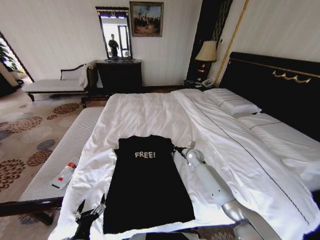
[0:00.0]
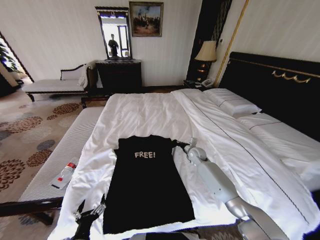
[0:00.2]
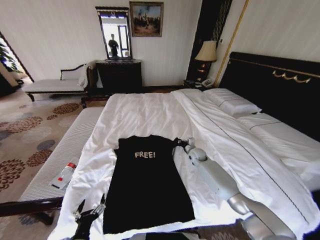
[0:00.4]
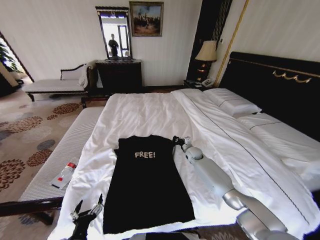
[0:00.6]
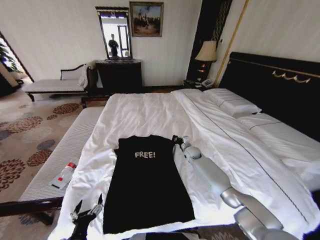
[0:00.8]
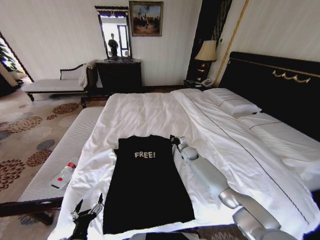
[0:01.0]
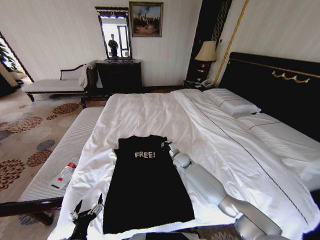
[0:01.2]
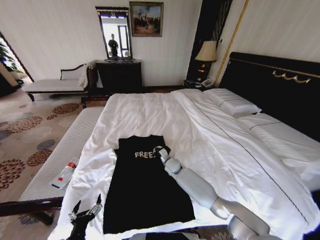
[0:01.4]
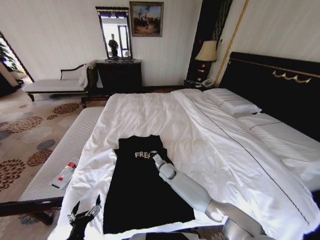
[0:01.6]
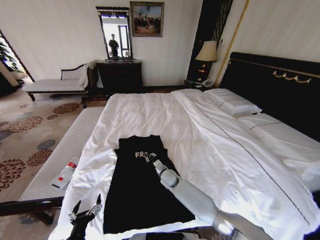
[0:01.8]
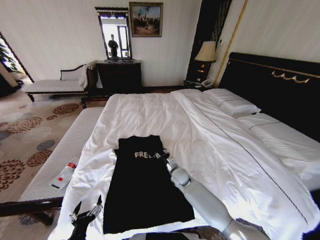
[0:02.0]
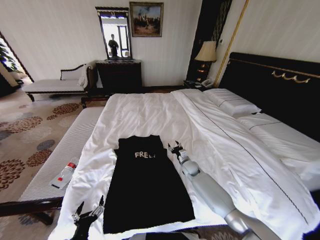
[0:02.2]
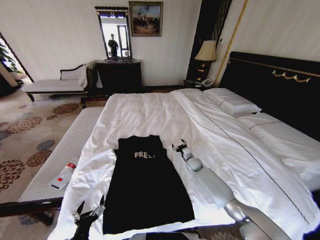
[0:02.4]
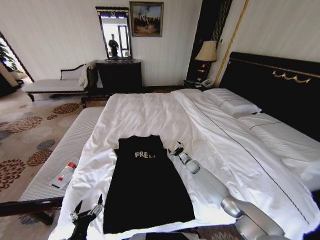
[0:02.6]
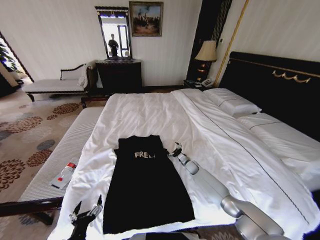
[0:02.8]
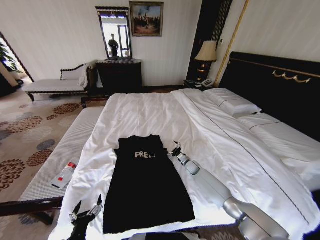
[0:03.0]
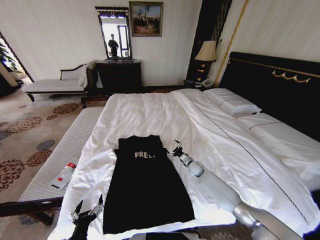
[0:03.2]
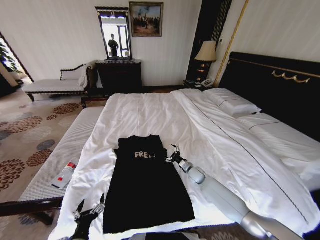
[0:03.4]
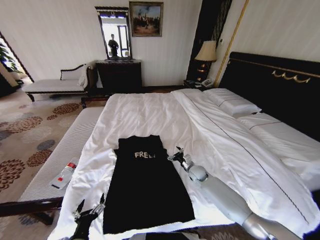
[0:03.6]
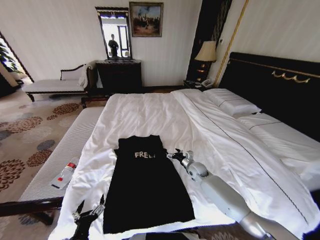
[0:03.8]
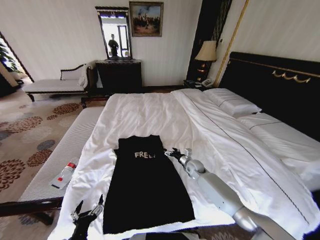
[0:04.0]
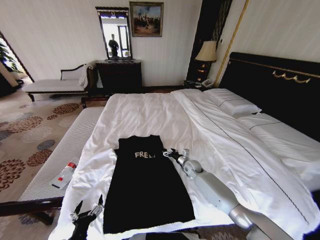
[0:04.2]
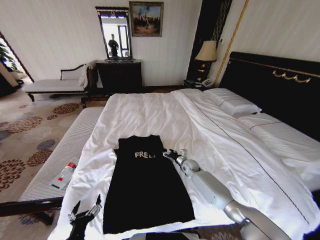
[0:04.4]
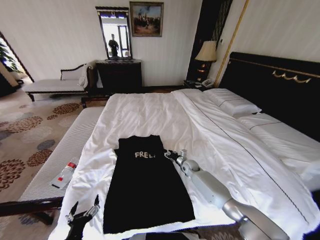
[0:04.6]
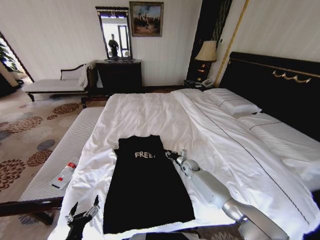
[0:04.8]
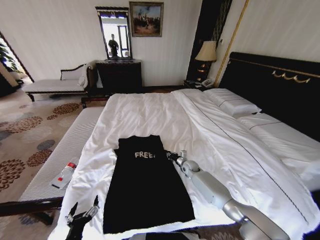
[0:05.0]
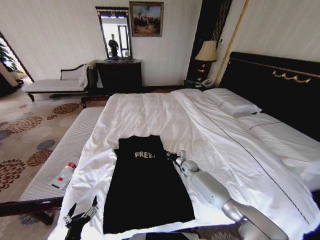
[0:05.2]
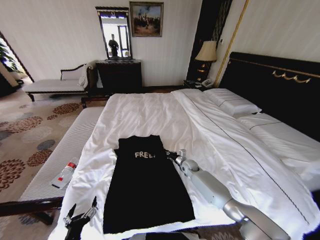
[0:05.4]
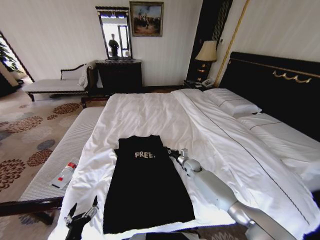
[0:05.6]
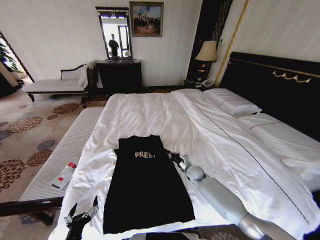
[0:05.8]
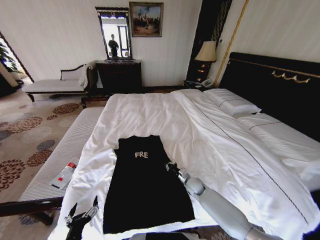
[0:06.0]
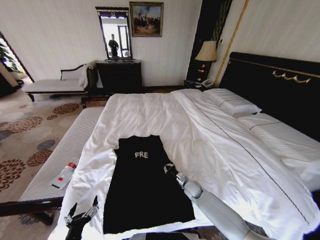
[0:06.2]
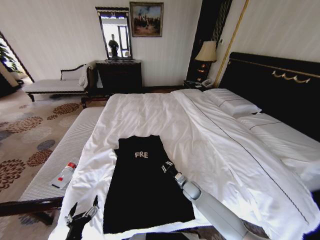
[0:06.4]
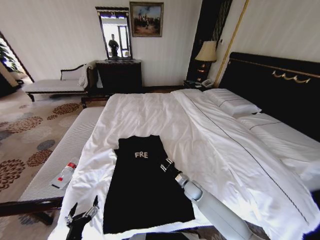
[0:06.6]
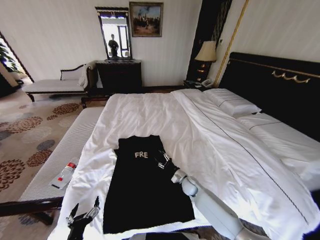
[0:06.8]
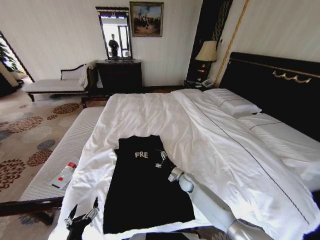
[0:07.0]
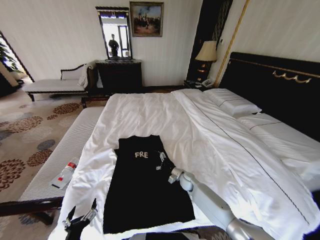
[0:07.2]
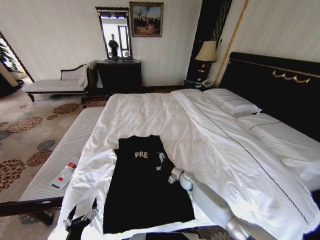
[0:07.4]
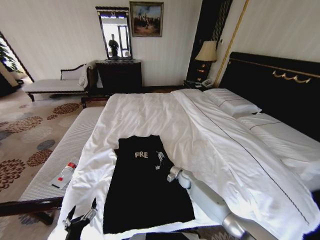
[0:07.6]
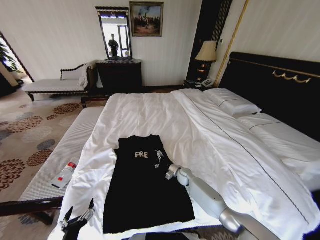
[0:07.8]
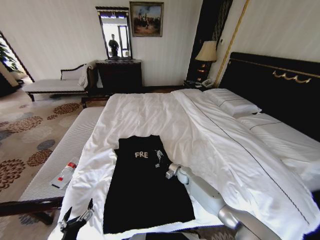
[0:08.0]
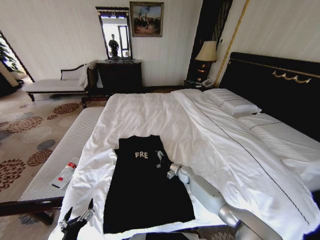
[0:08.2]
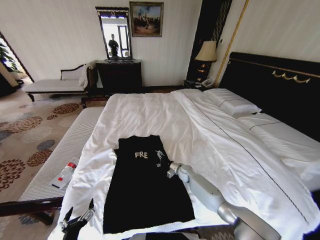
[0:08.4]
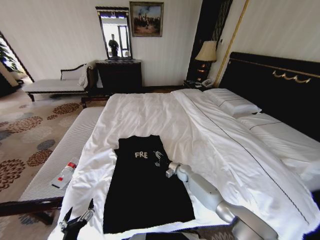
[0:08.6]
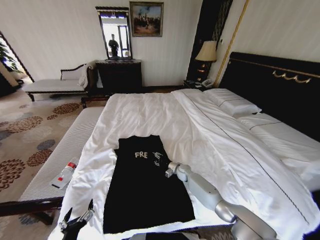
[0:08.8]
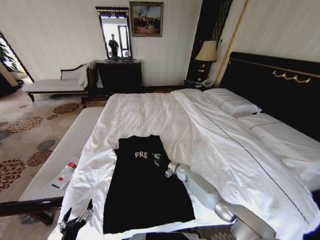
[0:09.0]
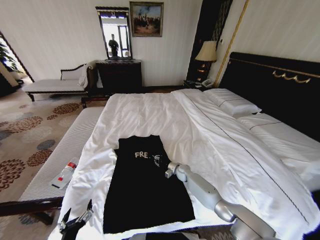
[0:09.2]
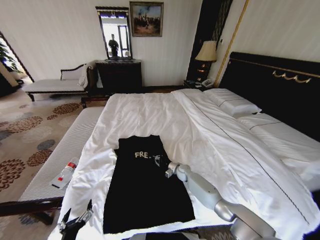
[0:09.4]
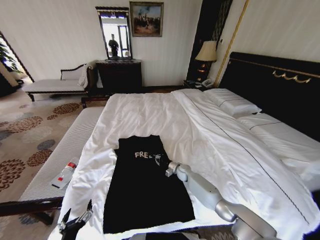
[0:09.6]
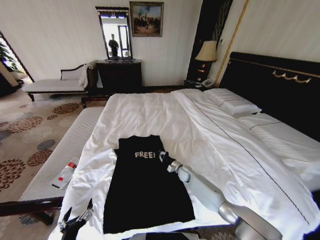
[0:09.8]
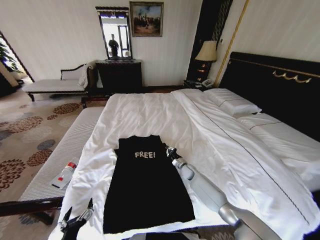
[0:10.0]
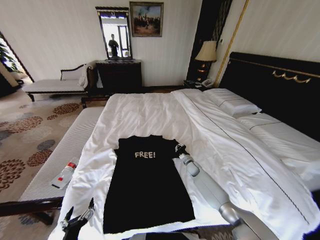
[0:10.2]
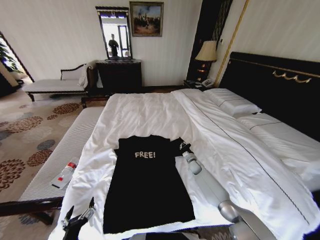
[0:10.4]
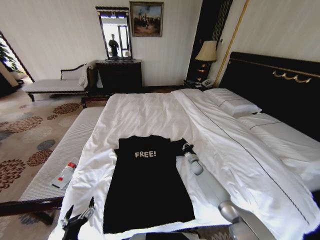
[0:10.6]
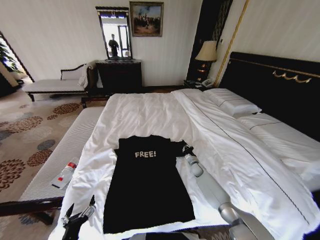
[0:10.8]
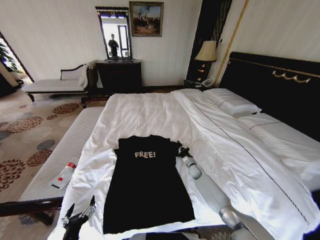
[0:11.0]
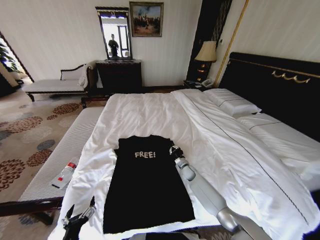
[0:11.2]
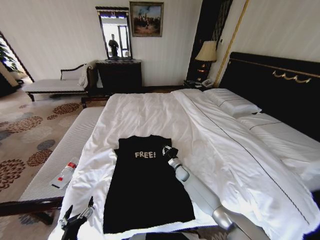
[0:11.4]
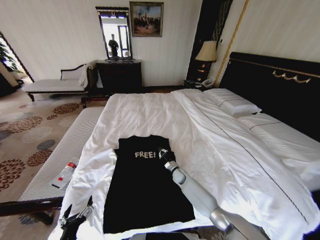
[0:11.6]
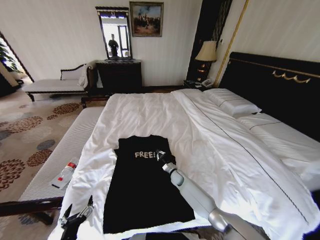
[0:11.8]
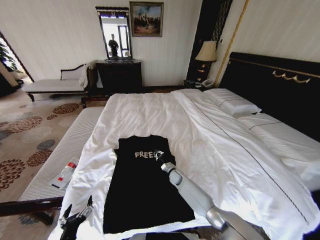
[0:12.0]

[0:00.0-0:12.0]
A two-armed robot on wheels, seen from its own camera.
Task of the whole recording: Fold the clothes on the bed.
0:00.0 to 0:01.6: The right gripper goes some 15 cm to the left.
0:01.6 to 0:03.0: The right gripper travels to the right by roughly 15 cm, and opens up.
0:04.4 to 0:06.0: The right gripper heads backward, covering some 10 cm, and closes up.
0:06.0 to 0:07.6: The right gripper goes roughly 5 cm forward, and opens up.
0:07.6 to 0:09.0: The right gripper closes up.
0:09.0 to 0:10.4: The right gripper shifts roughly 10 cm to the right, and closes its fingers.
0:10.4 to 0:12.0: The right gripper moves to the left, roughly 15 cm.

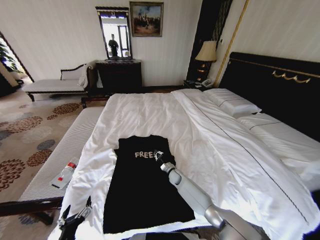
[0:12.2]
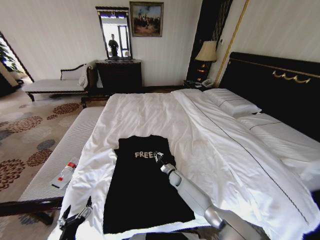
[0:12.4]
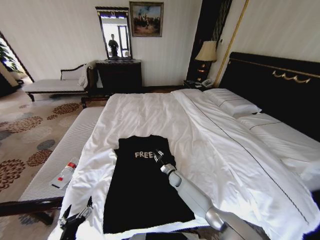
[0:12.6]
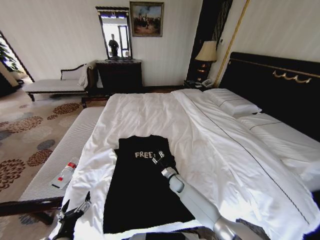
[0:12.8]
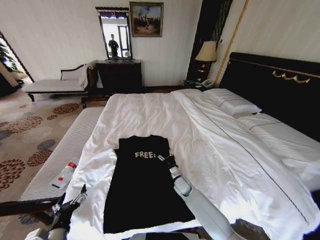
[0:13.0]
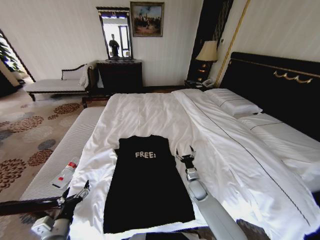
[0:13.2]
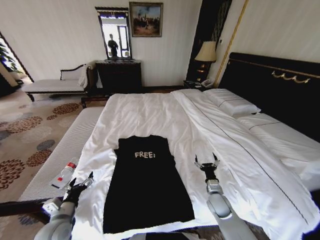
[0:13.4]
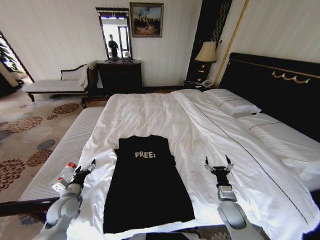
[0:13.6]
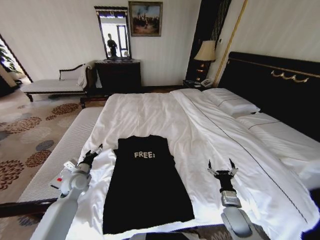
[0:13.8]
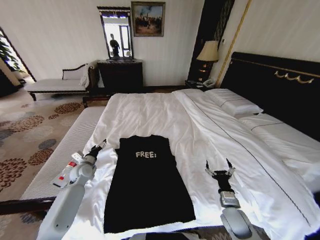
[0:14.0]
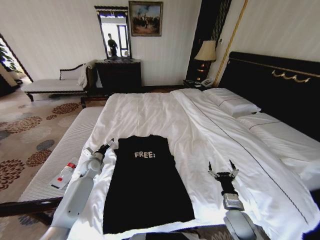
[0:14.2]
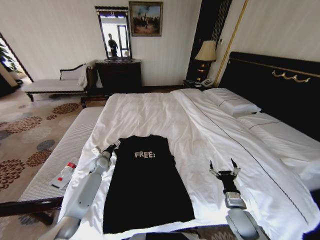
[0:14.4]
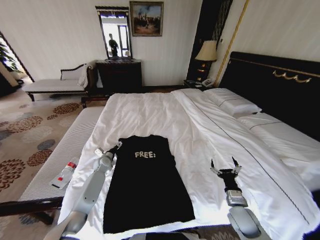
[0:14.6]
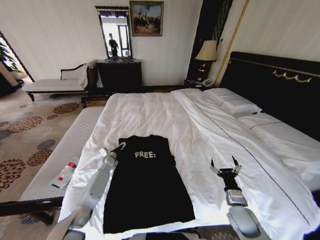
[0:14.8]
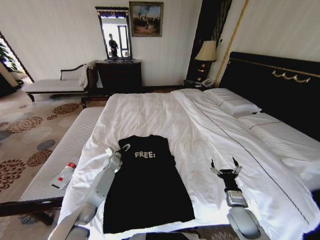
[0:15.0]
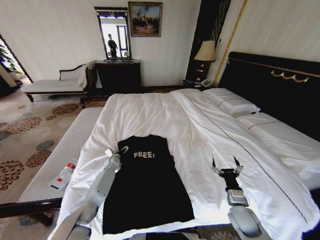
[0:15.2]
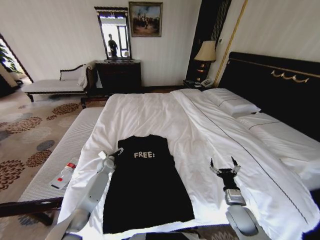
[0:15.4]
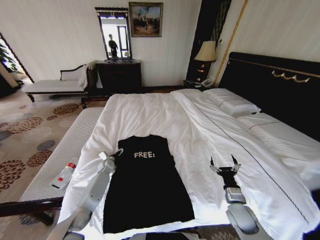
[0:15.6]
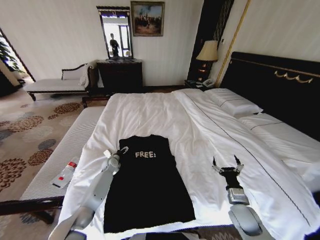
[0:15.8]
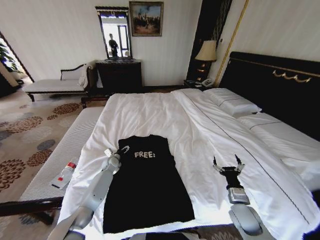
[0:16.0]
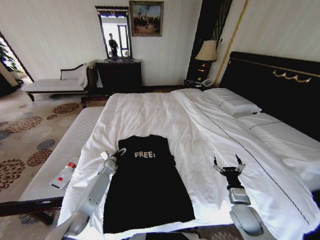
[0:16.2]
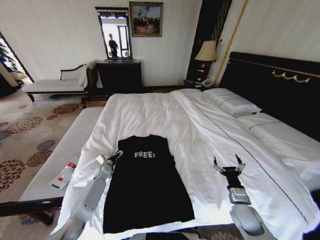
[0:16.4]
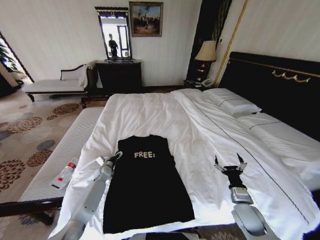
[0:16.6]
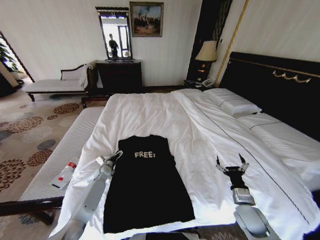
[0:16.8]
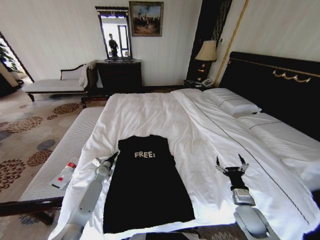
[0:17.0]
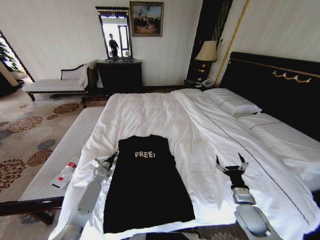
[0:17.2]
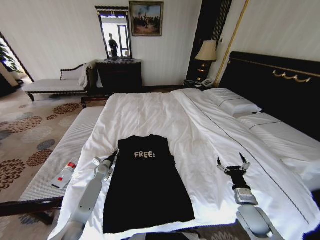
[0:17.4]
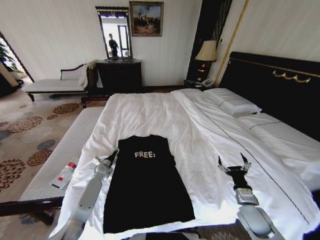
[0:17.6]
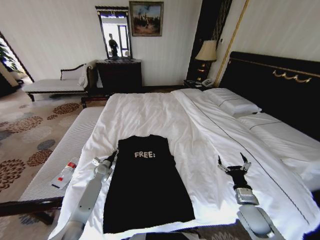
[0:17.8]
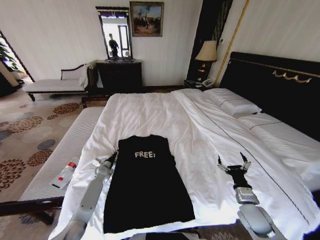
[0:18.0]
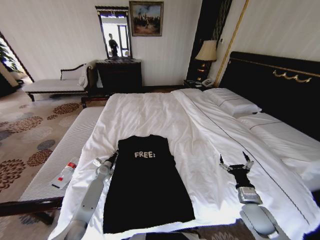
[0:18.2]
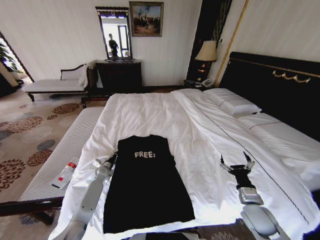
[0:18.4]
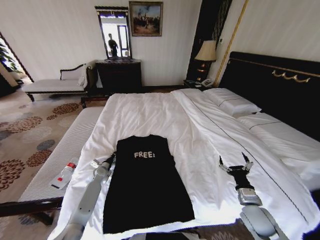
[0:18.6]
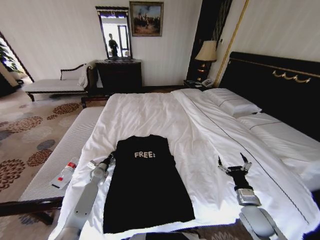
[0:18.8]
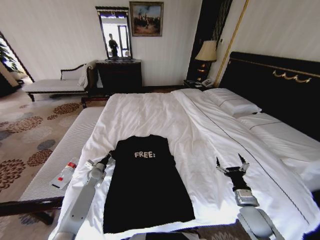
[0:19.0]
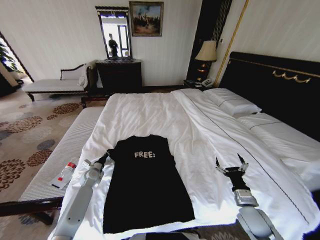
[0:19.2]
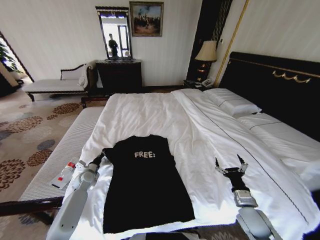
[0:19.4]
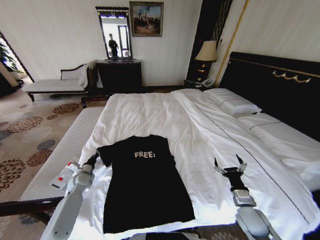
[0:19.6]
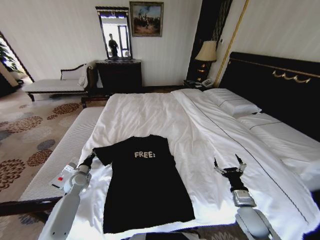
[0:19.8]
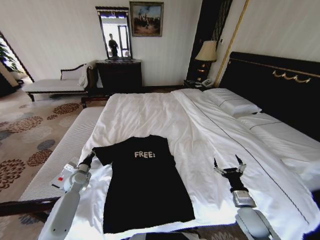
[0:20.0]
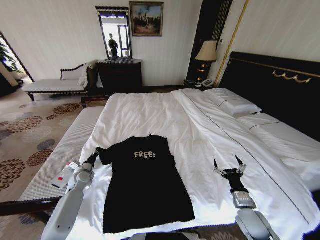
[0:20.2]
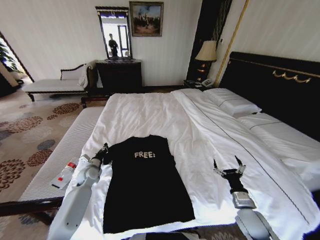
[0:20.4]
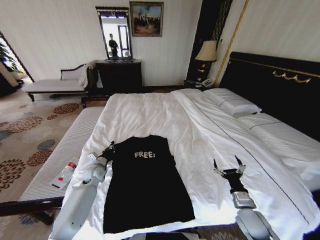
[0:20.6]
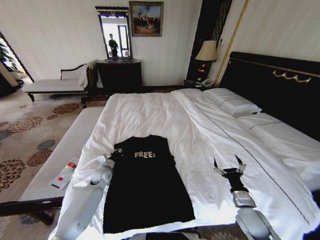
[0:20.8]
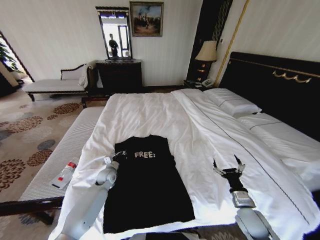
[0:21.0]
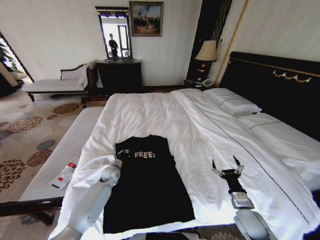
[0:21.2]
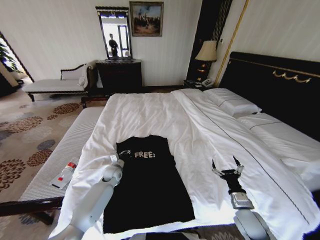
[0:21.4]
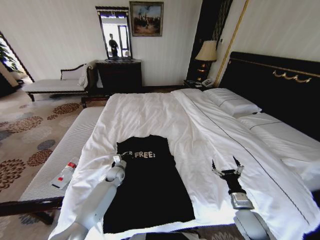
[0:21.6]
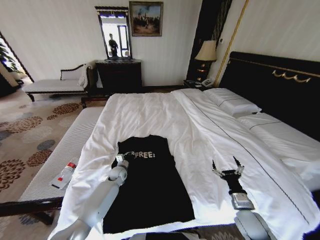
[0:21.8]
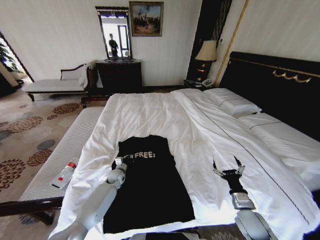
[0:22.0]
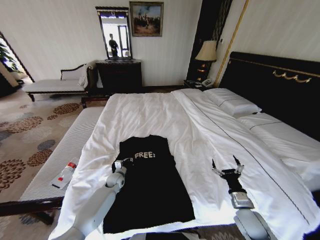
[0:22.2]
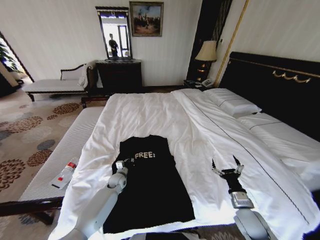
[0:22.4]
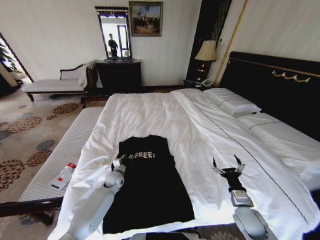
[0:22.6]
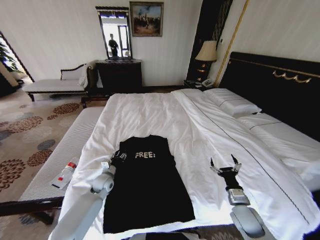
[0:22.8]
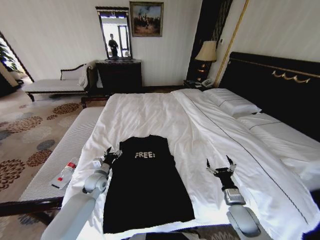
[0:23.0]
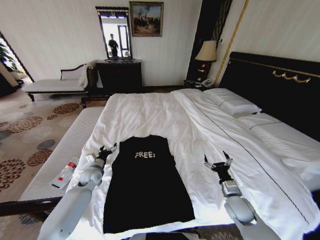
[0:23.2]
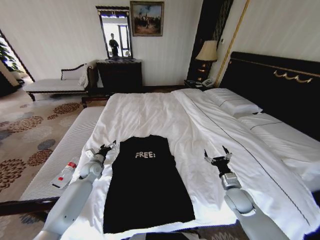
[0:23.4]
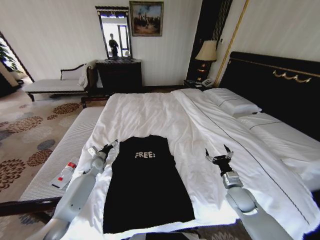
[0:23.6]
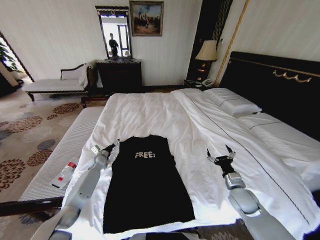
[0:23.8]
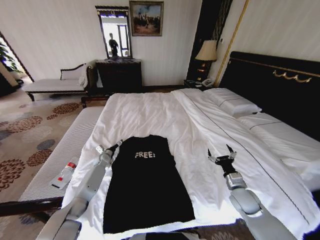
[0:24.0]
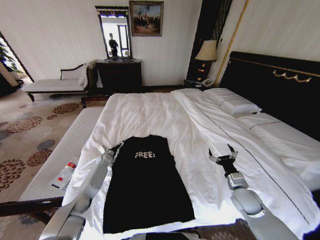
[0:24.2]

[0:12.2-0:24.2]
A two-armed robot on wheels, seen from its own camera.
Task of the whole recording: Fold the clothes on the bed.
0:12.2 to 0:13.8: The left gripper is displaced forward by approximately 30 cm. The right gripper shifts approximately 30 cm backward, to the right and upward, and opens up.
0:13.8 to 0:15.2: The left gripper moves forward, downward and to the right, about 20 cm.
0:15.2 to 0:16.6: The left gripper moves backward, some 5 cm.
0:16.6 to 0:18.2: The left gripper closes.
0:18.2 to 0:19.8: The left gripper is displaced to the left, backward and upward by roughly 15 cm.
0:19.8 to 0:21.2: The left gripper heads to the right, covering about 15 cm.
0:22.6 to 0:24.2: The left gripper heads forward and to the left, covering roughly 15 cm, and opens. Meanwhile the right gripper goes approximately 5 cm forward.
